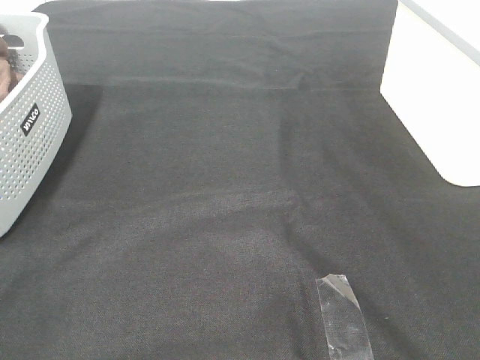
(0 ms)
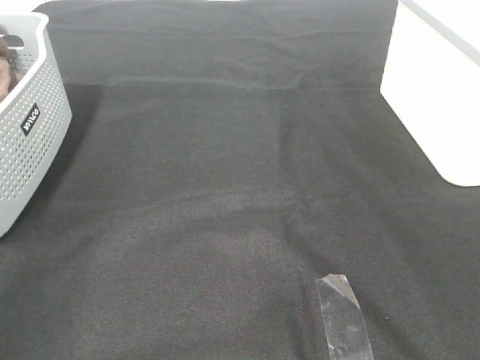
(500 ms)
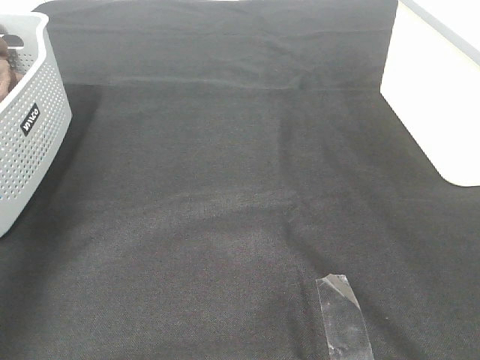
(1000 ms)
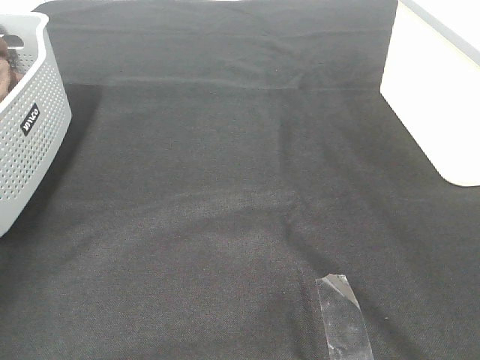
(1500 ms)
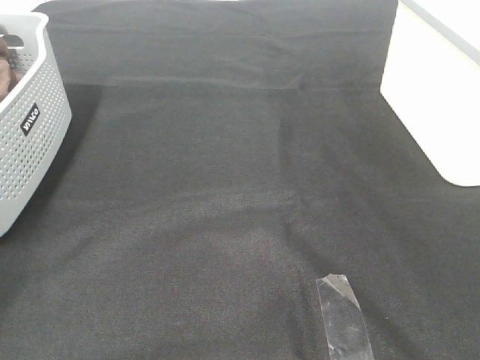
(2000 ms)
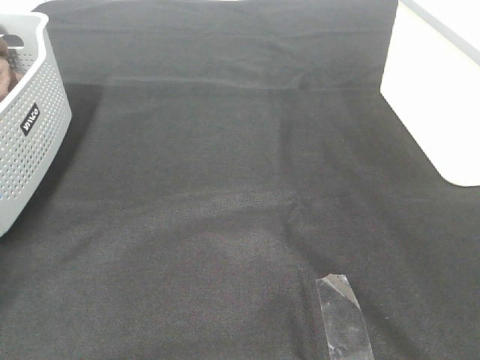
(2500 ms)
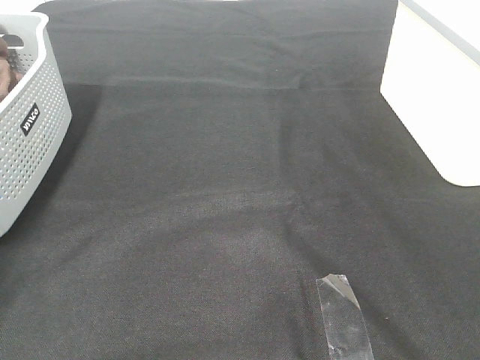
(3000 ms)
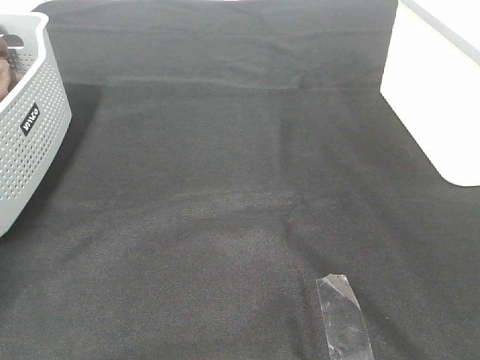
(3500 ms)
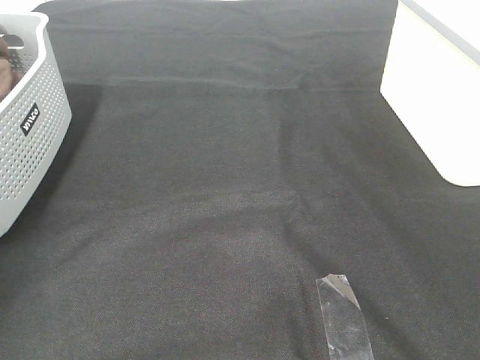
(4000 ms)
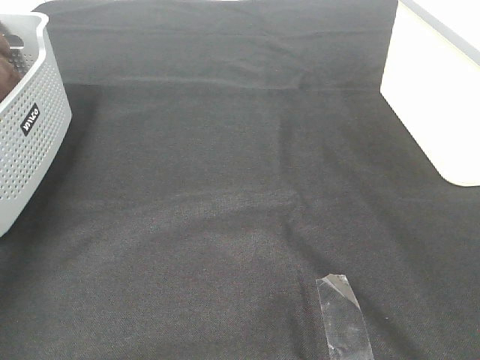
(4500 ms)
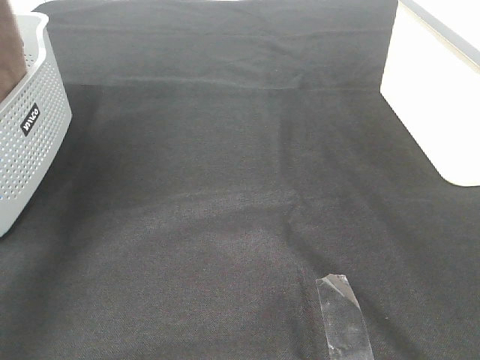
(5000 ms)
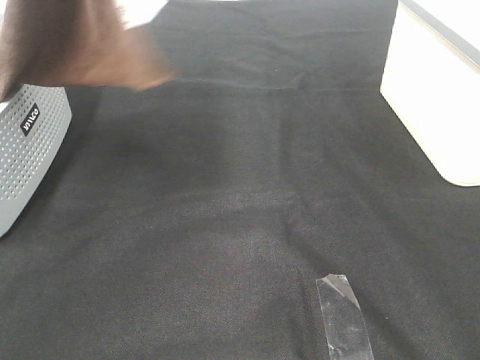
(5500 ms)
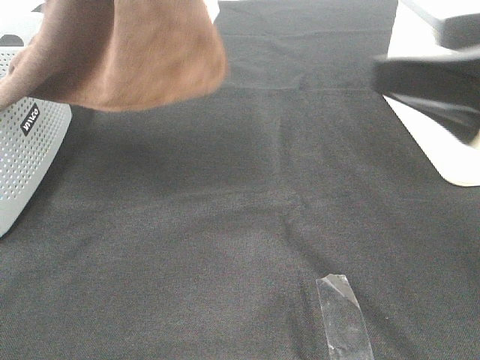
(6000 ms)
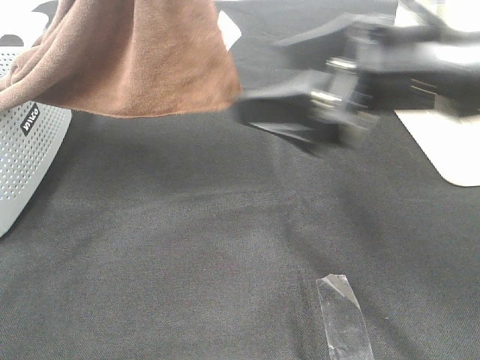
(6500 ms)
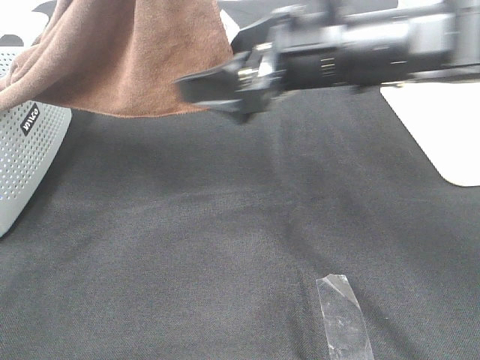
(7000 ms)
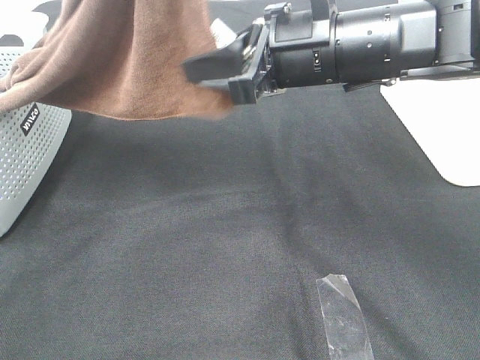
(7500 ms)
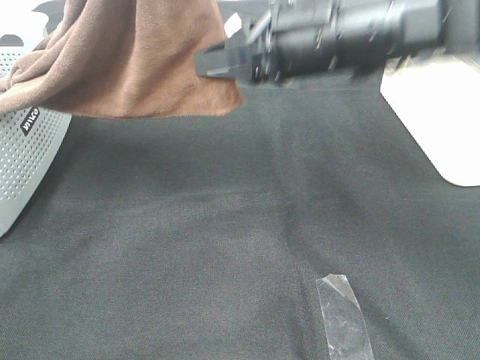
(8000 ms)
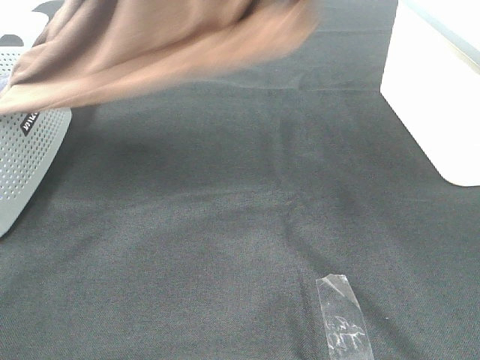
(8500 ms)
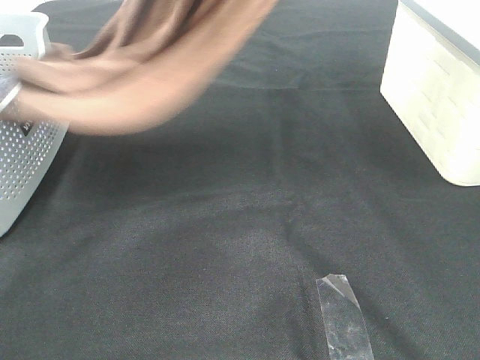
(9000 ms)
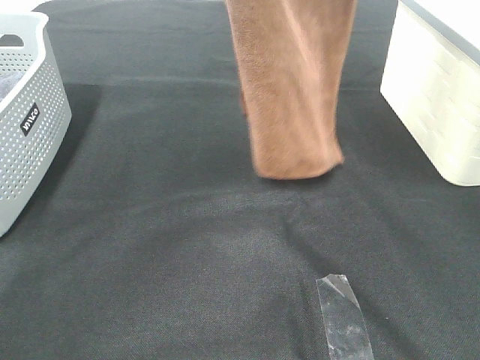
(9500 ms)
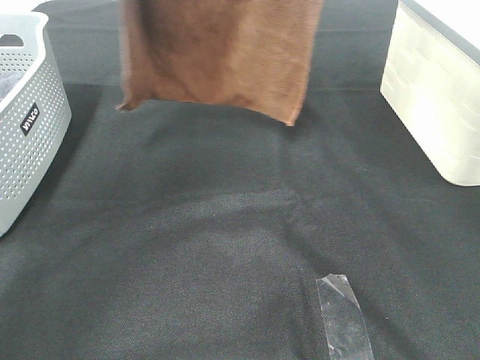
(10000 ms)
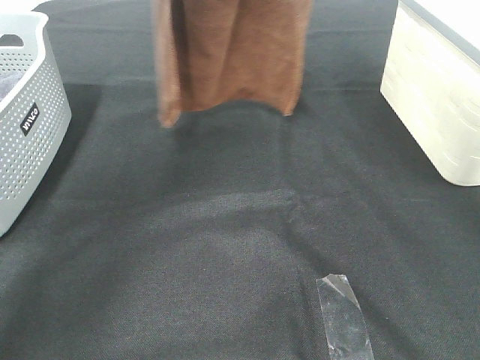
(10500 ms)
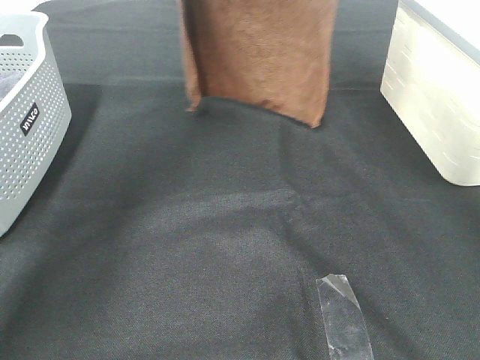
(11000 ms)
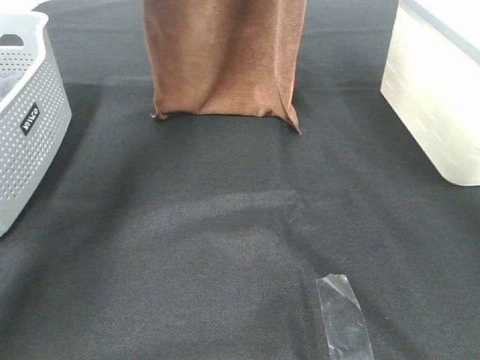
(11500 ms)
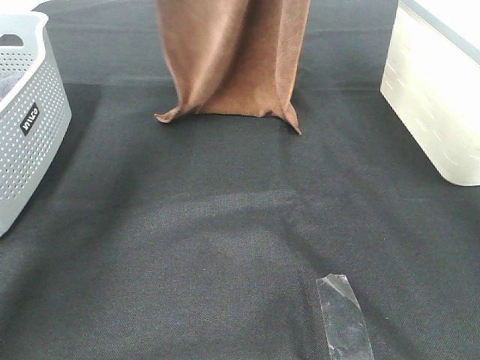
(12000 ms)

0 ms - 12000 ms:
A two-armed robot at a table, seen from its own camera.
Task of the whole recording: Remove the towel and place it.
Step, 5000 ms - 7000 ms: Right hand: grab a corner of the brown towel and straighten it.
4000 ms - 6000 ms: The left gripper is displaced to the right and upward by approximately 35 cm; the right gripper travels forward by about 20 cm.
6000 ms - 8000 ms: The right gripper goes roughly 20 cm to the left and forward, and closes its fingers.
8000 ms - 10000 ms: The left gripper travels forward by roughly 10 cm. Meanwhile the right gripper is displaced upward and forward by about 30 cm.
10000 ms - 12000 ms: The right gripper is displaced forward and downward by approximately 10 cm. The left gripper travels forward and downward by some 15 cm.

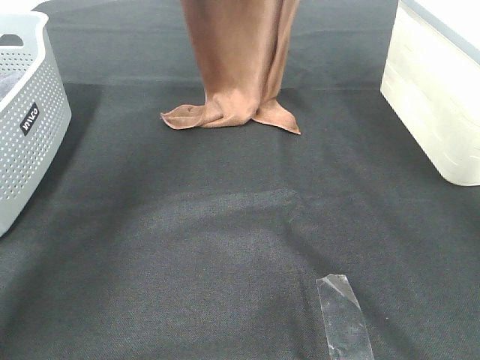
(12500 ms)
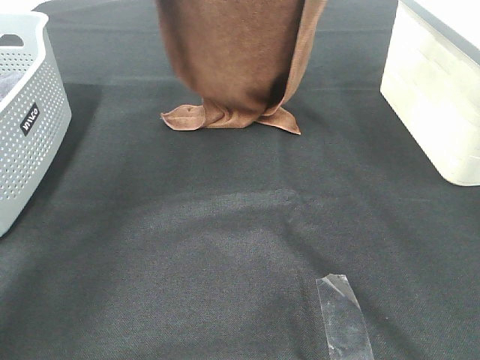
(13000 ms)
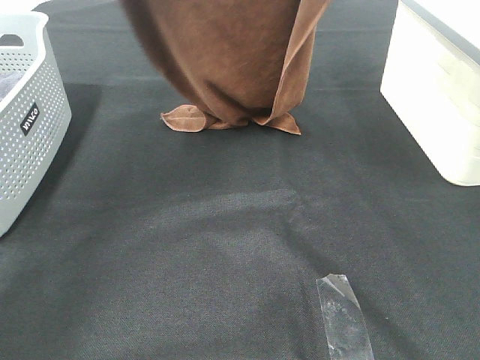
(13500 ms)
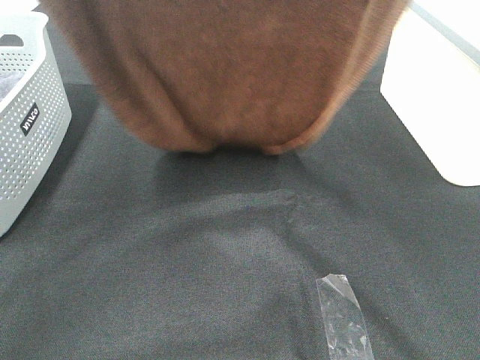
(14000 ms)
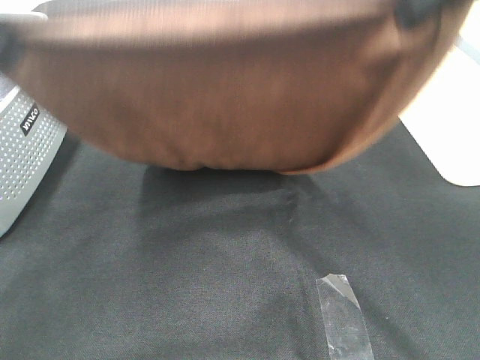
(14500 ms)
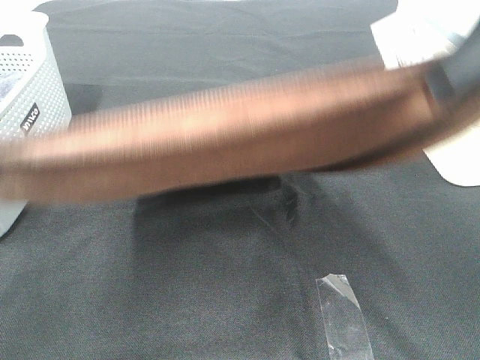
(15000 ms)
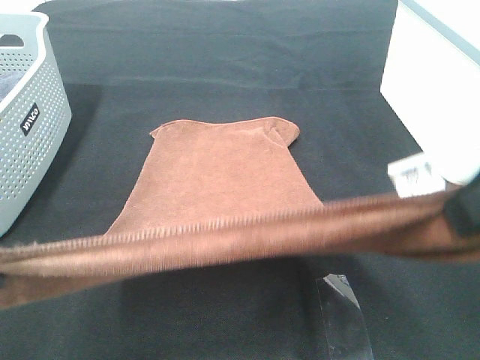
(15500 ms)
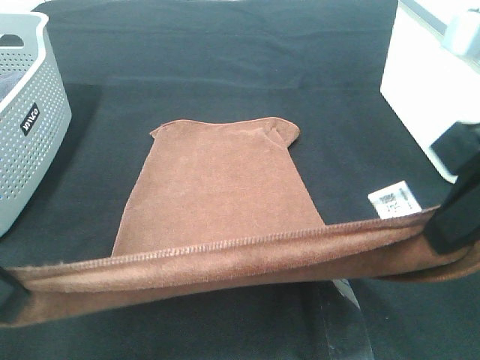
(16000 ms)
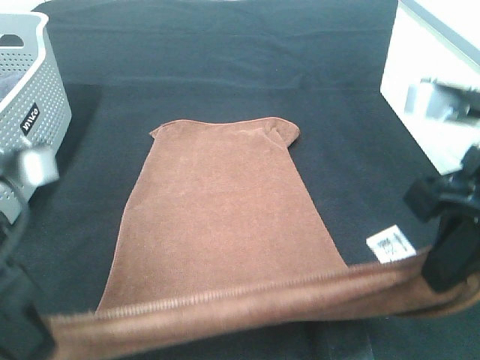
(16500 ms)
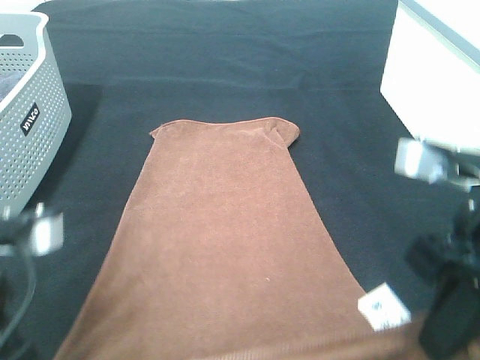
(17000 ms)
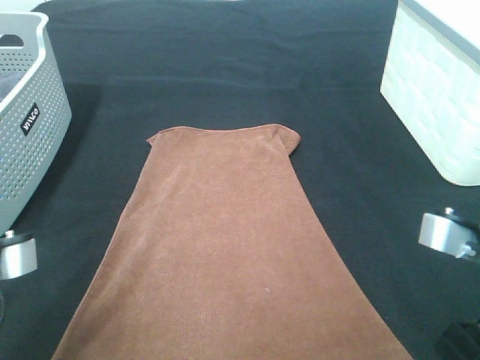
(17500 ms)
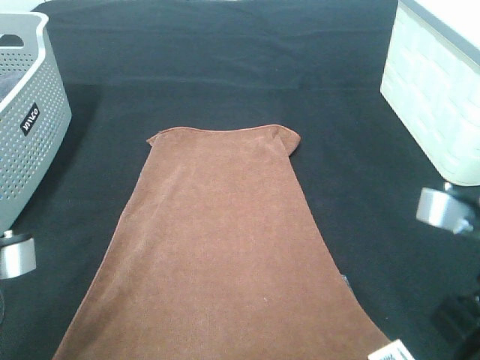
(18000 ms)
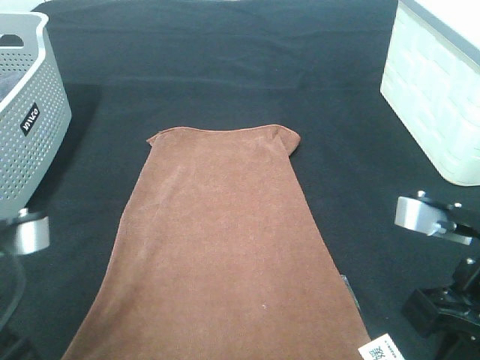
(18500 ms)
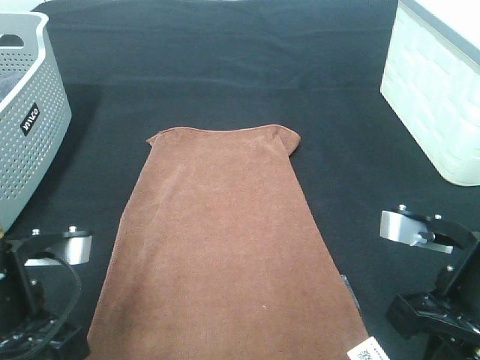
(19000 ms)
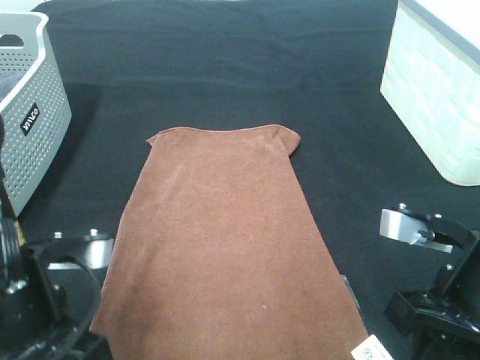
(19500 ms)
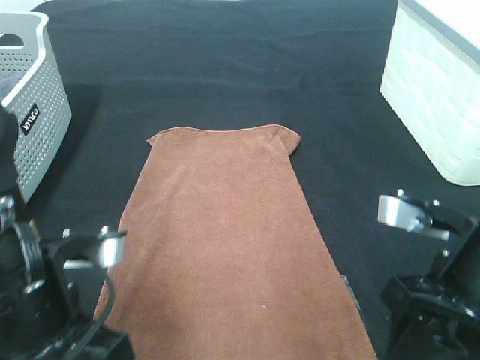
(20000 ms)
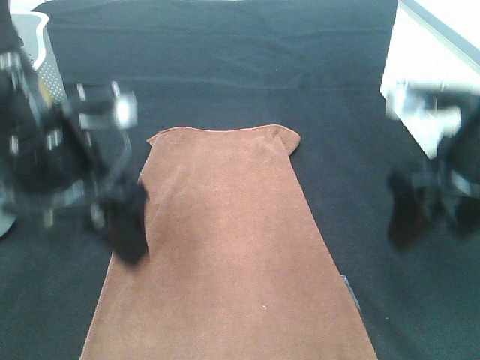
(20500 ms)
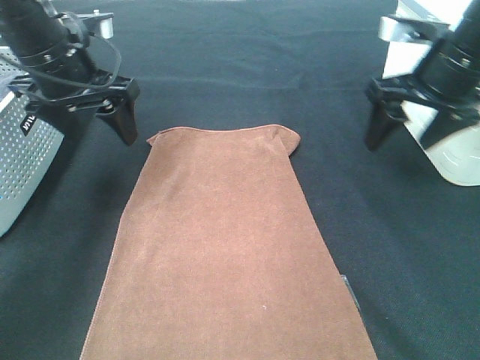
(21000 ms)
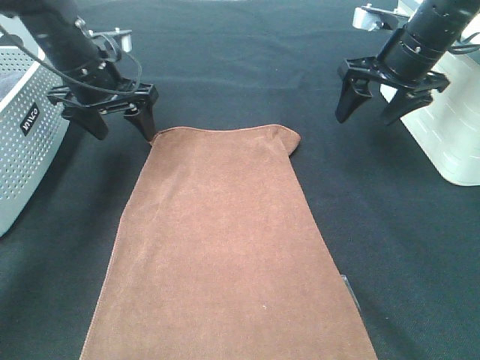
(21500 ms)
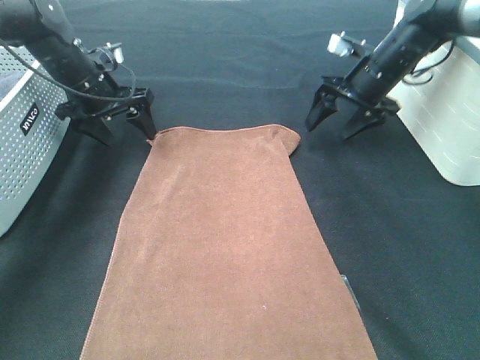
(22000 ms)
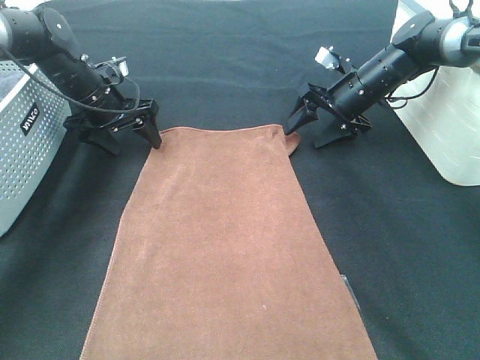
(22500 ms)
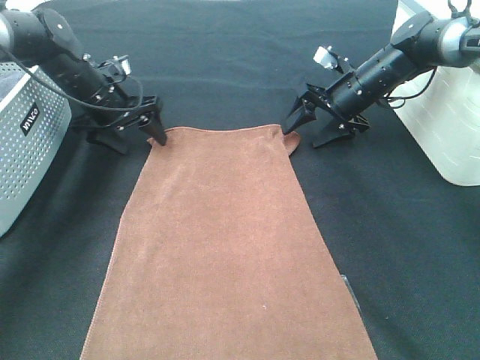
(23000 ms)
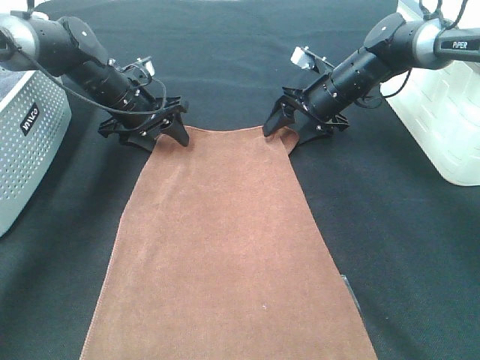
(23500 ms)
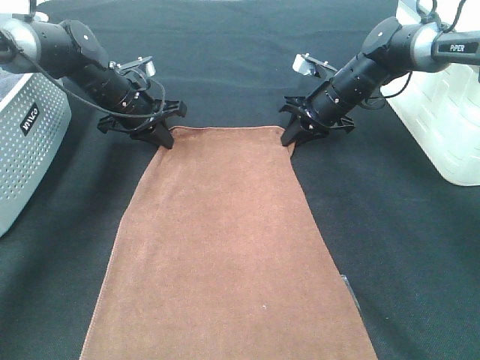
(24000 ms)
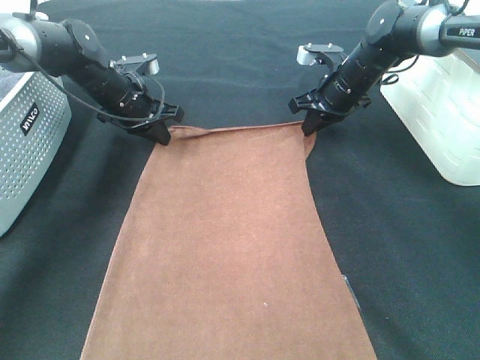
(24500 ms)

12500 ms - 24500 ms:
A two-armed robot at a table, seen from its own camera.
Task of the whole recording: Remove the towel and place it.
Step, 12500 ms - 15000 ms: Left hand: spread the brown towel flat on the table.
Step, 12500 ms - 15000 ms: Right hand: spread the brown towel flat on the table.
Step, 15500 ms - 22000 ms: Left hand:adjust the brown towel.
Step, 15500 ms - 22000 ms: Right hand:adjust the brown towel.
12500 ms - 14500 ms: The grippers both shift backward by approximately 25 cm.
14500 ms - 16500 ms: The grippers both shift downward by roughly 15 cm.
16500 ms - 18500 ms: The right gripper travels downward by about 5 cm.
18500 ms - 20500 ms: Both grippers travel together forward, approximately 10 cm. The right gripper opens up. Meanwhile the left gripper opens its fingers.
20500 ms - 22500 ms: The two grippers go some 30 cm forward and downward.
22500 ms - 24500 ms: The left gripper closes up. Meanwhile the right gripper closes its fingers.

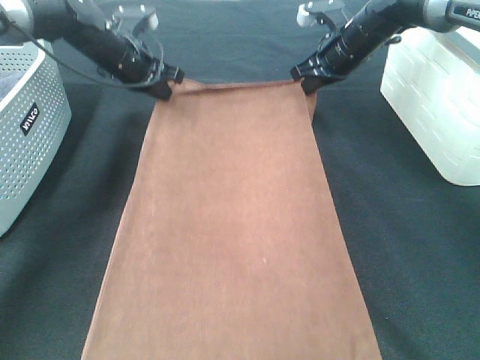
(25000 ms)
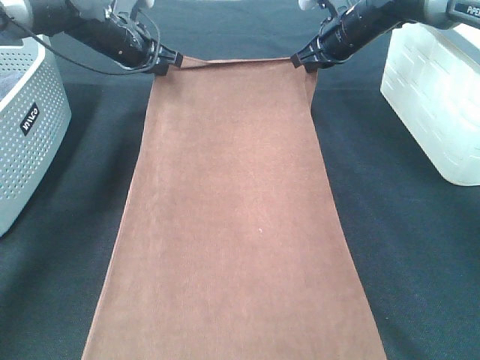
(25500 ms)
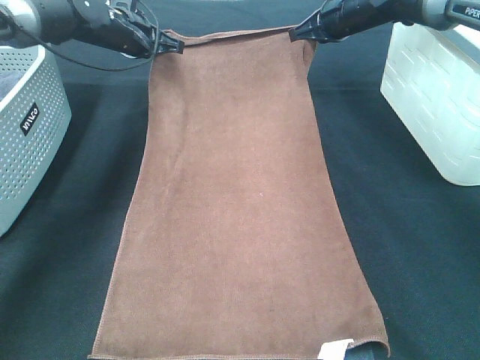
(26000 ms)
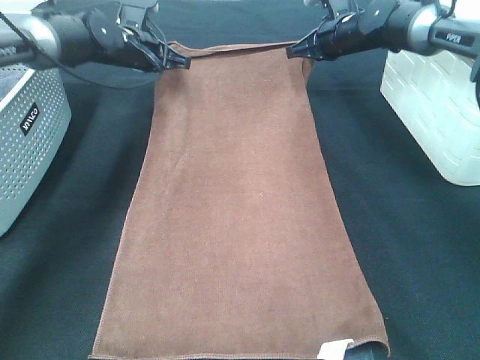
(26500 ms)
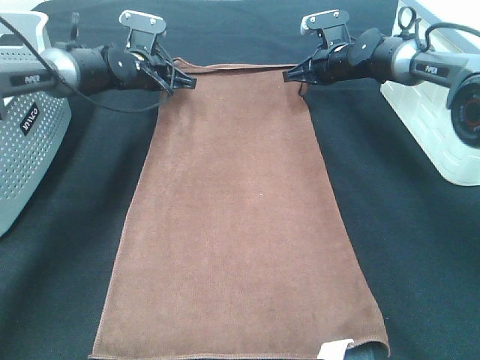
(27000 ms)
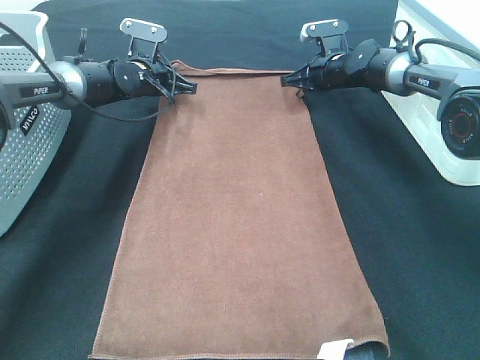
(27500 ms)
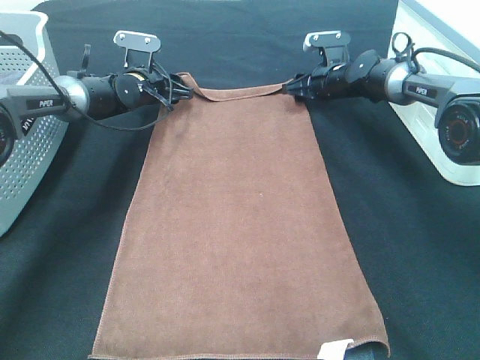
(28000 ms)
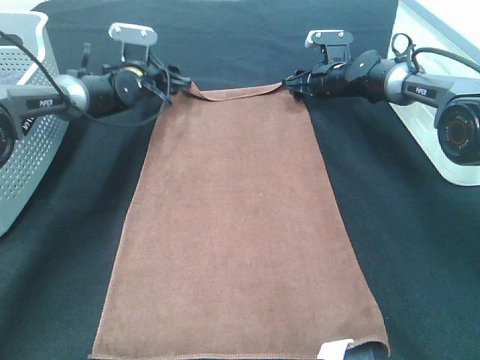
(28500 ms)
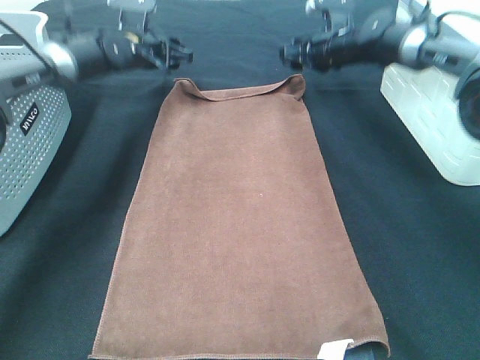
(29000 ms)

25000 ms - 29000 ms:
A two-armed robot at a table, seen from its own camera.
Task of the whole recording: Remove the towel and place it.
25000 ms - 27000 ms: Both grippers move downward, about 5 cm.
27000 ms - 29000 ms: The right gripper changes place by approximately 5 cm, and opens. Meanwhile the left gripper is displaced upward by about 5 cm, and opens.
